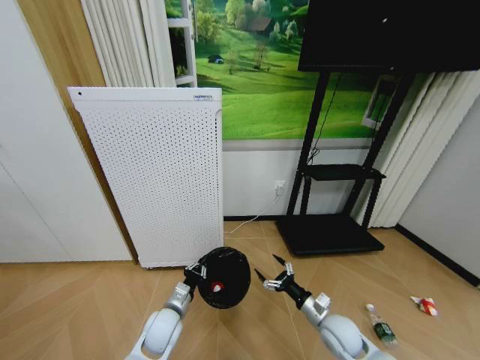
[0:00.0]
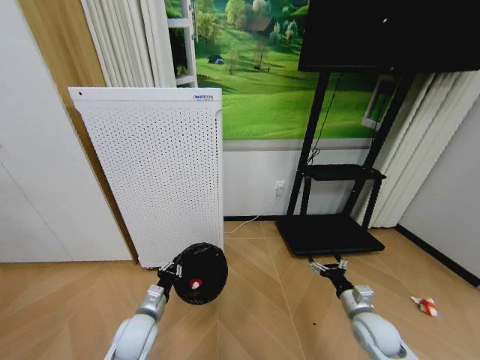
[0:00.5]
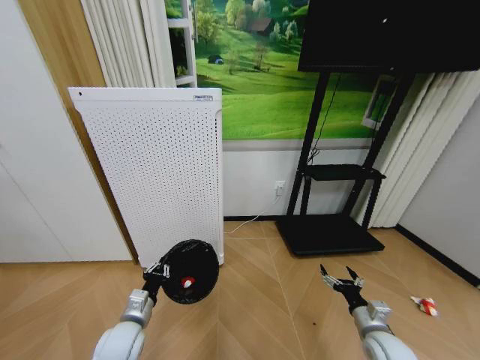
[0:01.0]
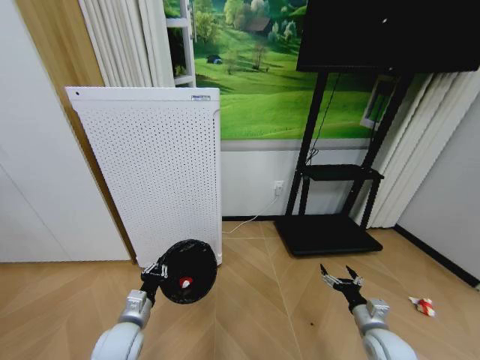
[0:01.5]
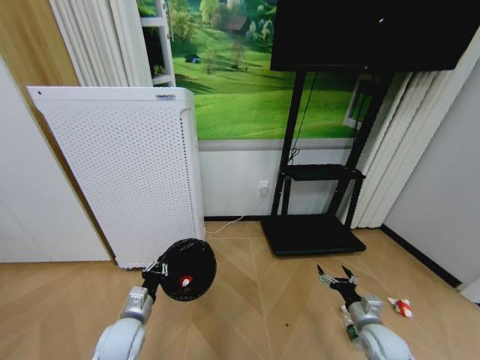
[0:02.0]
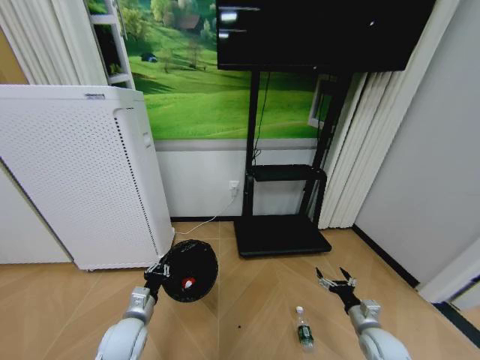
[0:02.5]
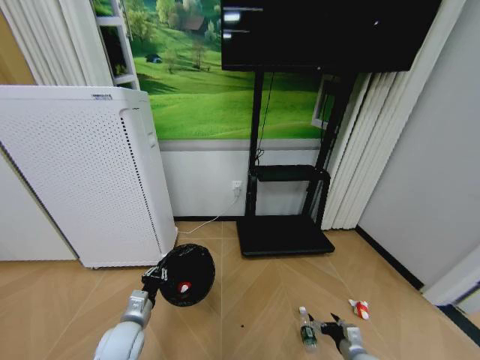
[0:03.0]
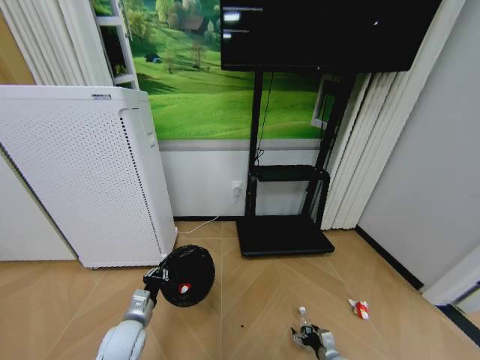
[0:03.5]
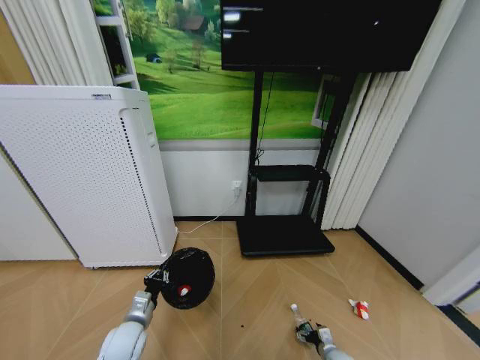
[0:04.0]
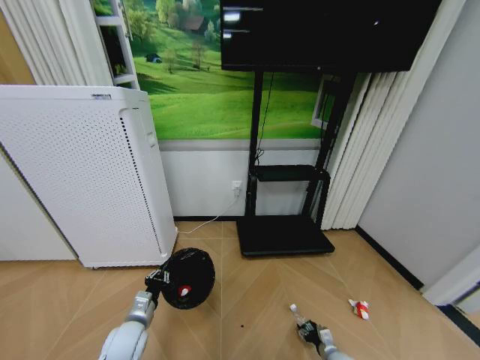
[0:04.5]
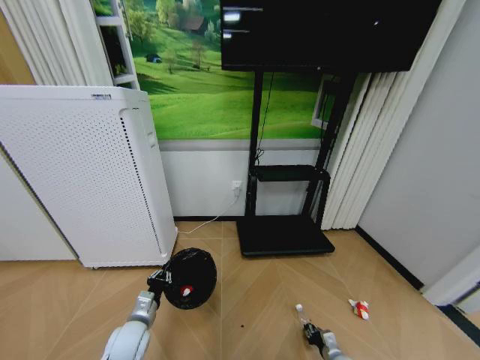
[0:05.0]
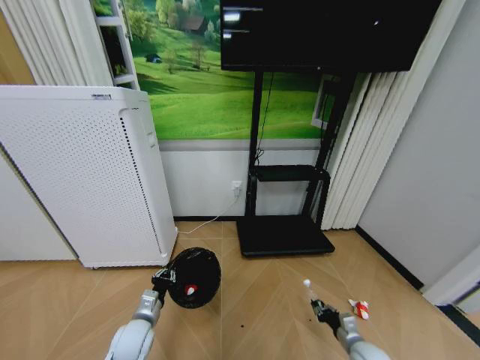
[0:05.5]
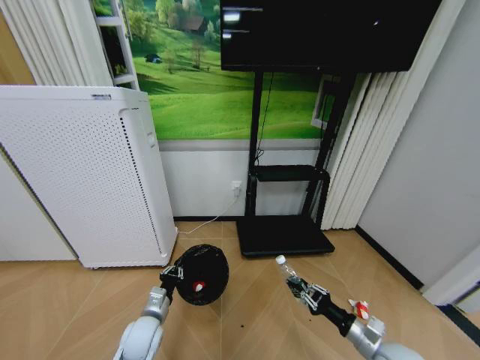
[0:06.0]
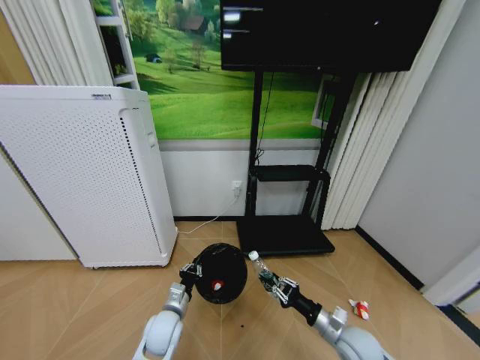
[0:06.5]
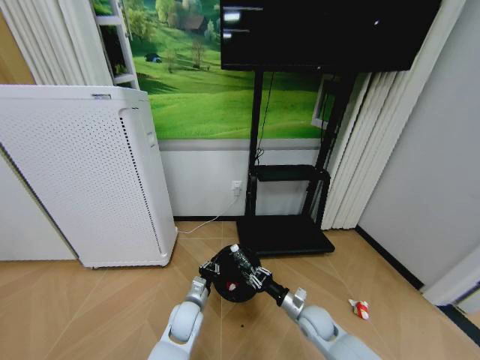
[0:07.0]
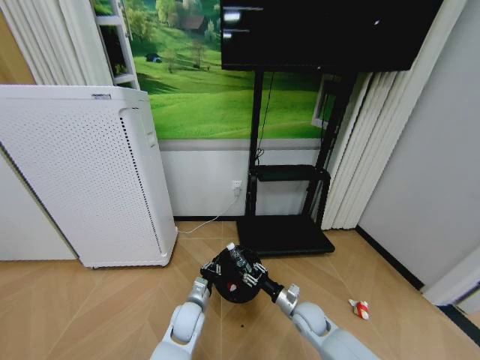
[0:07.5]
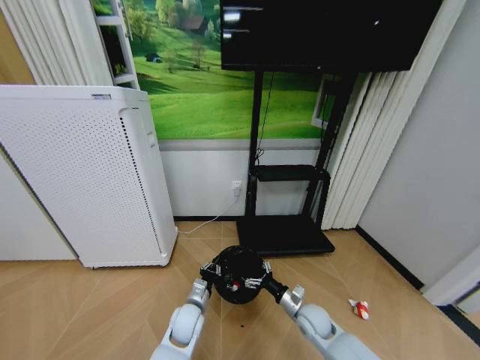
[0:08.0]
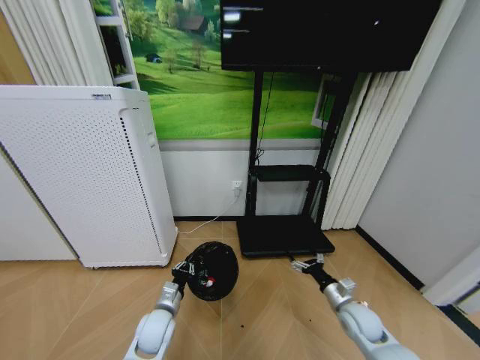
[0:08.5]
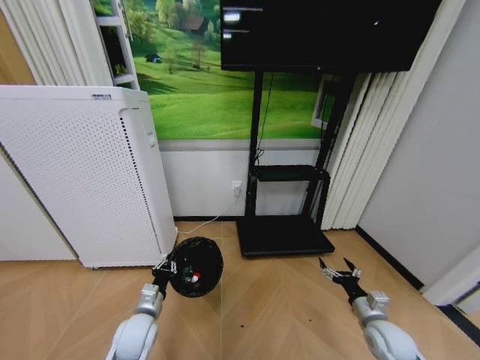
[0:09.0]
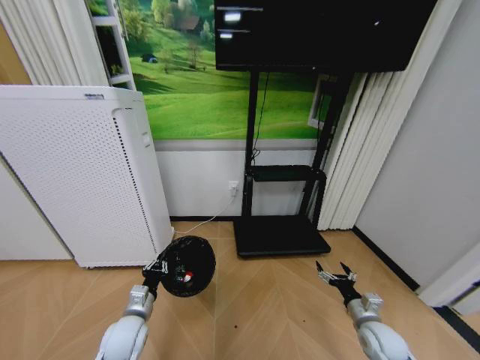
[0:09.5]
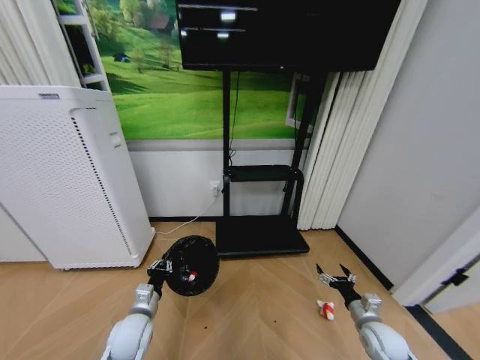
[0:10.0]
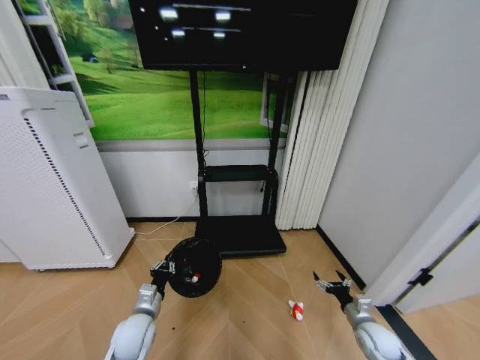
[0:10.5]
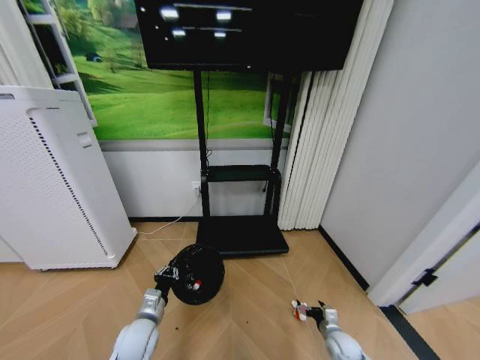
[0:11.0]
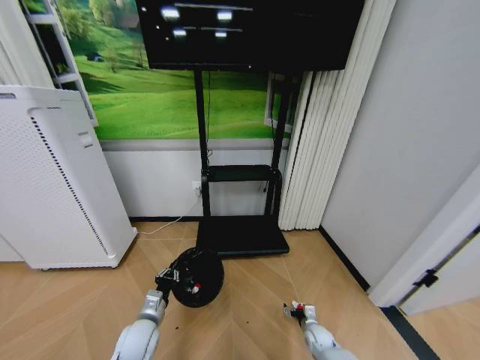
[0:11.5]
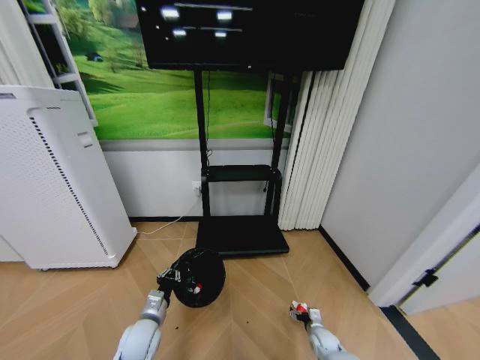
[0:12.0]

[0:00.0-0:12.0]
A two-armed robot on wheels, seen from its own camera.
Task of the whole recording: Pick up the trash bin and place the garbage on the floor into it.
0:00.0 to 0:02.0: The right gripper moves to the right, about 15 cm; the left gripper travels to the left by some 10 cm.
0:02.0 to 0:04.0: The right gripper moves downward, roughly 20 cm.
0:04.0 to 0:06.0: The right gripper goes some 25 cm upward, and closes its fingers.
0:06.0 to 0:08.0: The right gripper travels to the left, forward and downward by approximately 20 cm, and opens. The left gripper shifts some 10 cm to the right.
0:08.0 to 0:10.0: The left gripper goes approximately 15 cm to the left and upward; the right gripper heads to the right, covering roughly 15 cm.
0:10.0 to 0:12.0: The right gripper goes some 20 cm downward and to the left.

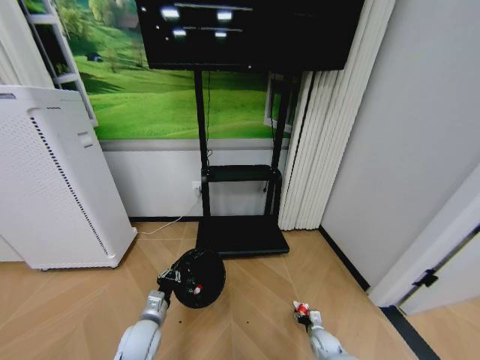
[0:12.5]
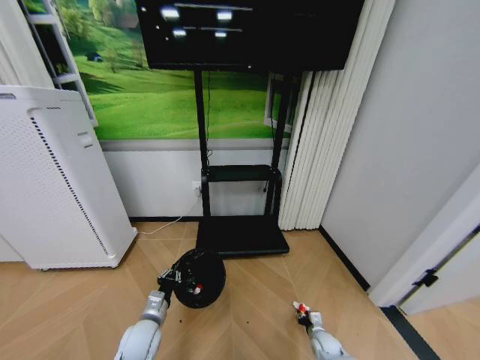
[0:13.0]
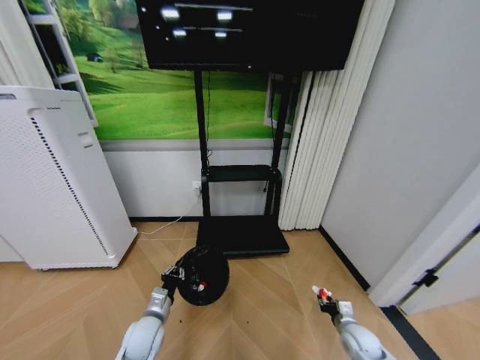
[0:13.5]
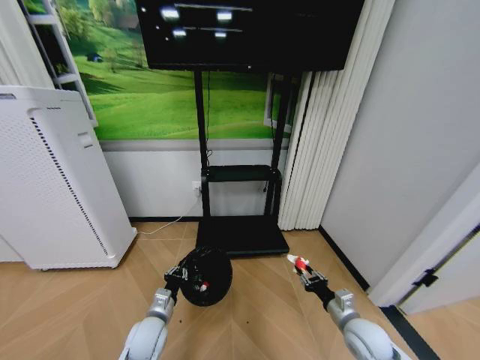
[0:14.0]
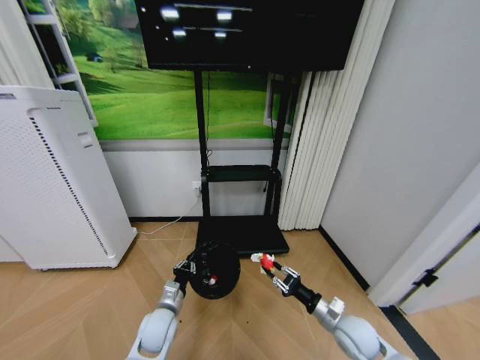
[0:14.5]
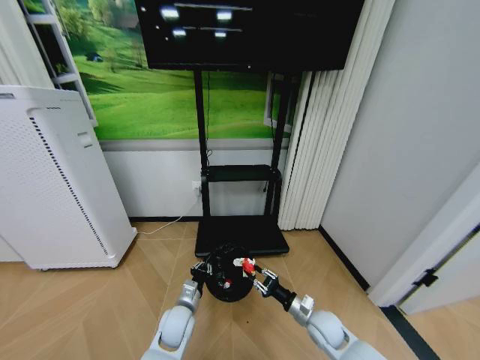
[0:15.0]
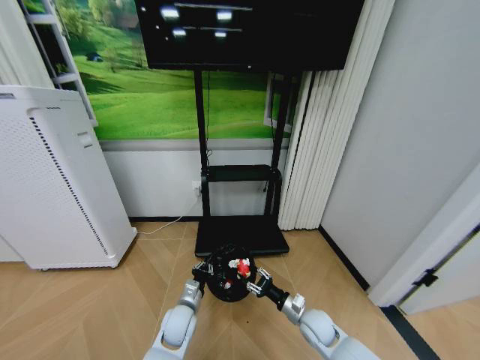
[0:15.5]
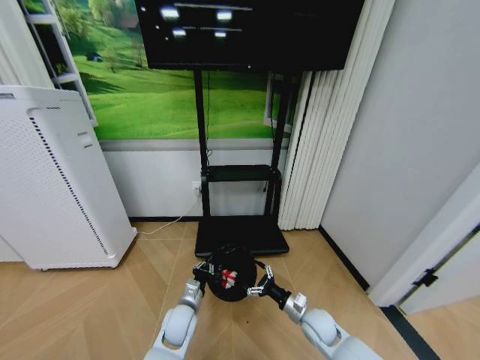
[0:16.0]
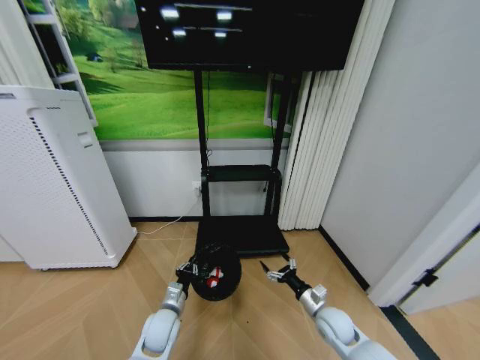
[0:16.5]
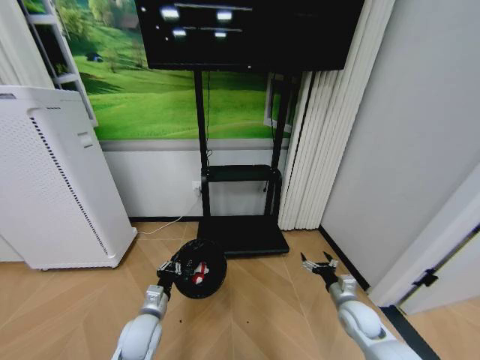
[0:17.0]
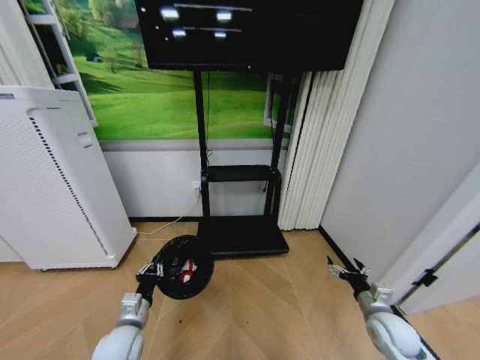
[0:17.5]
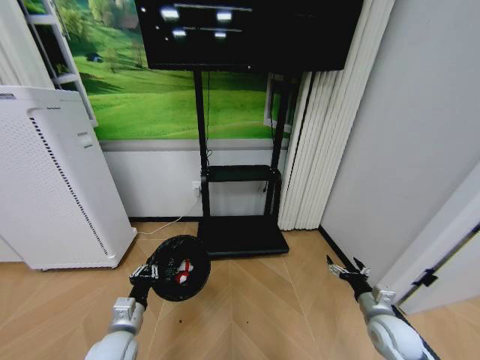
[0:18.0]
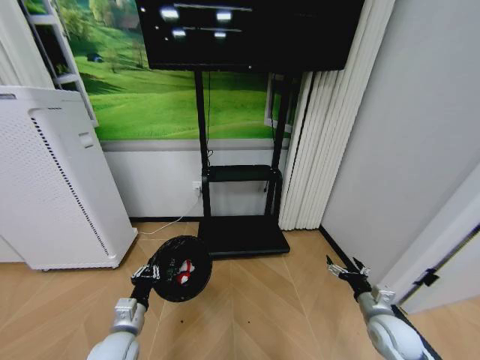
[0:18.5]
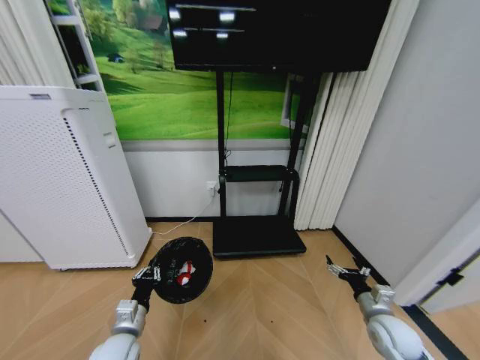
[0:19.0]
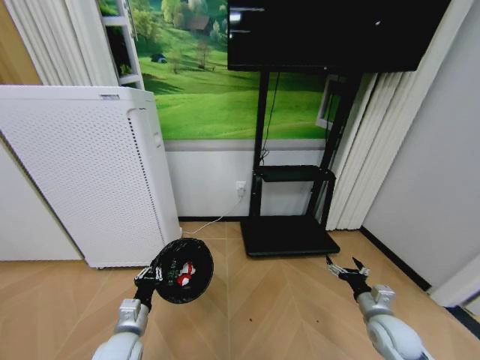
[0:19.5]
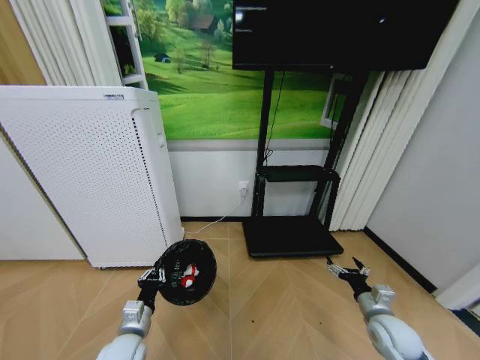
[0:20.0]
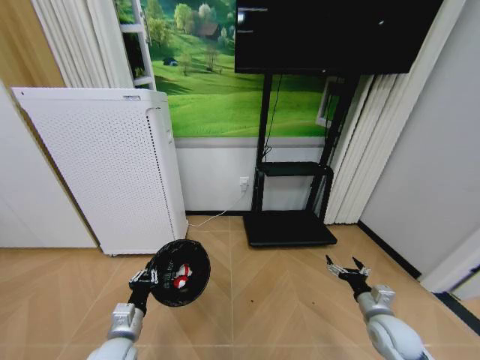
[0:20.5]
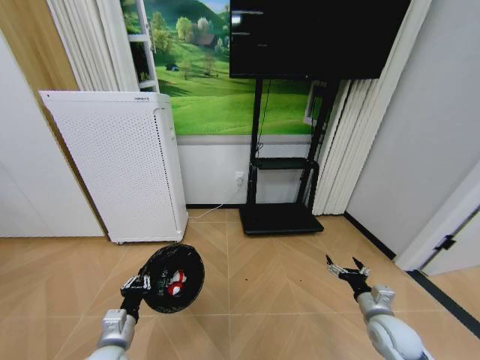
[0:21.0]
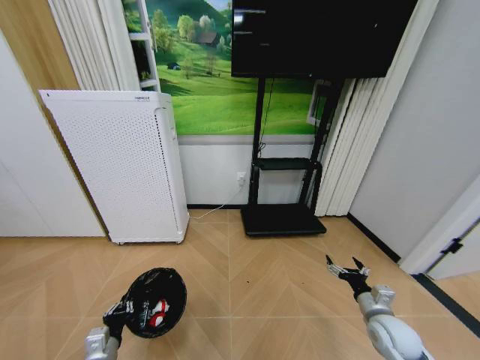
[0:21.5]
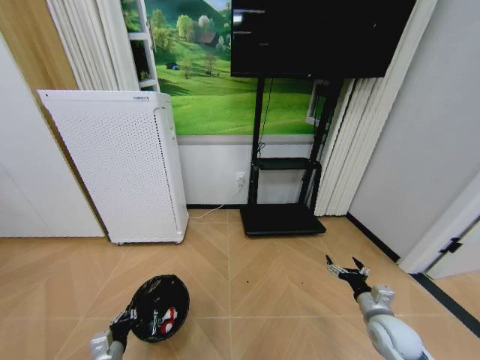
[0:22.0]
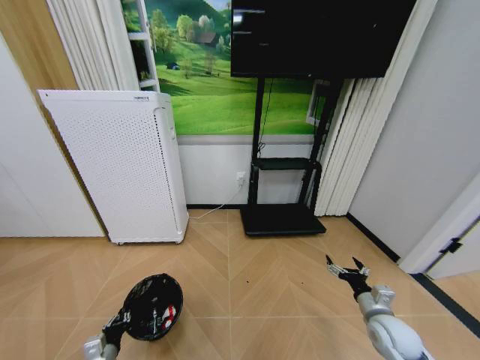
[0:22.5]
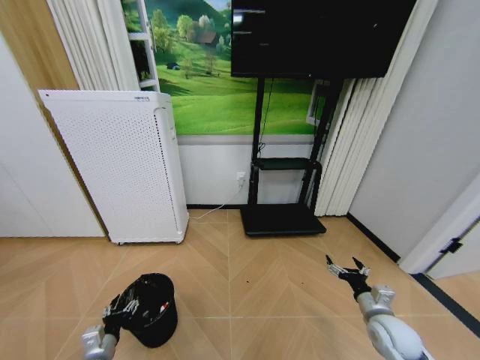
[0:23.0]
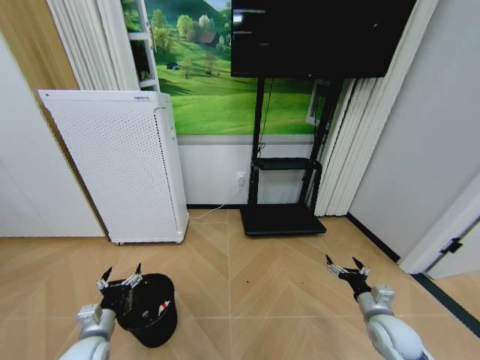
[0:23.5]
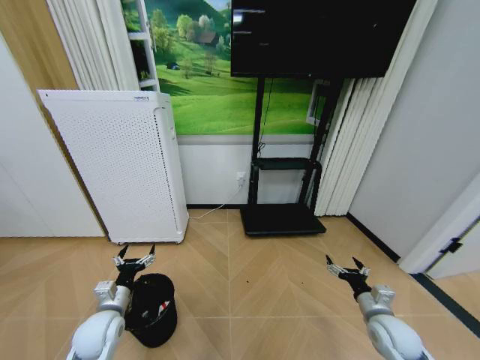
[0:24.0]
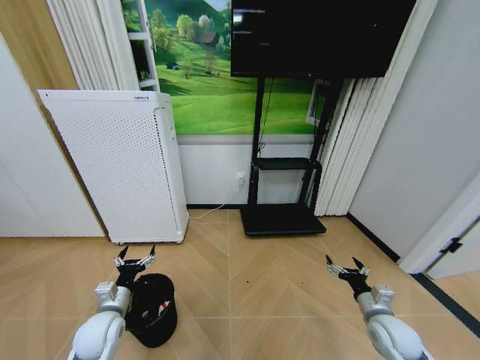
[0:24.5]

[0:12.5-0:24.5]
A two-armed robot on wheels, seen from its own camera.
Task of the whole recording: Pick up the trash bin and place the garbage on the floor into it.
0:12.5 to 0:14.5: The right gripper is displaced upward by about 25 cm, and closes its fingers.
0:14.5 to 0:16.5: The right gripper opens.
0:16.5 to 0:18.5: The left gripper shifts some 10 cm backward, to the left and upward; the right gripper moves to the right and upward, some 15 cm.
0:20.5 to 0:22.5: The left gripper goes about 15 cm downward and to the left.
0:22.5 to 0:24.5: The left gripper moves upward and forward, some 15 cm, and opens up.

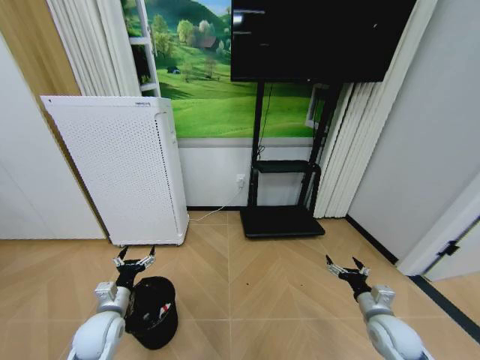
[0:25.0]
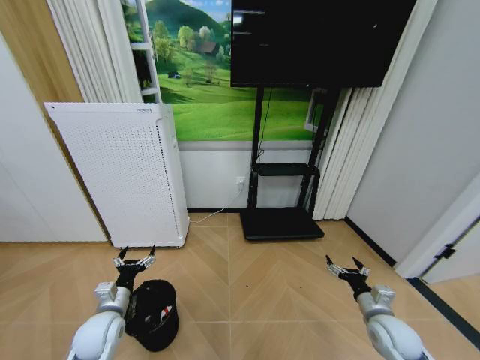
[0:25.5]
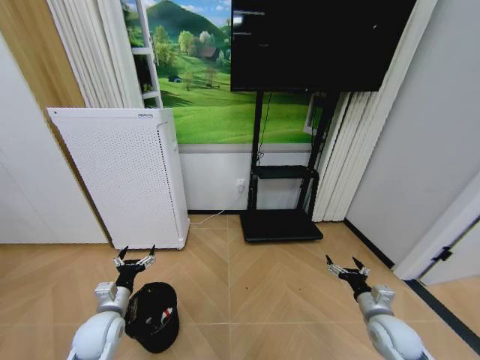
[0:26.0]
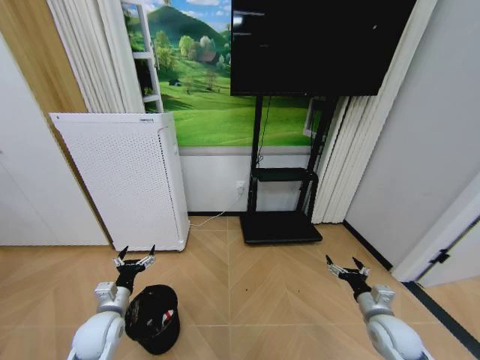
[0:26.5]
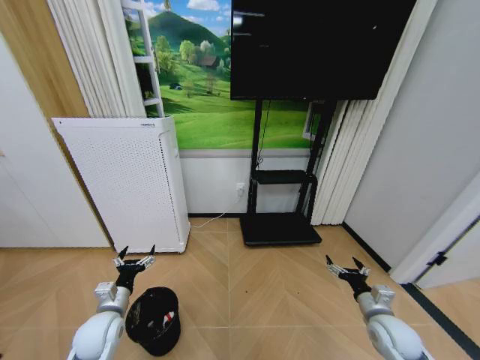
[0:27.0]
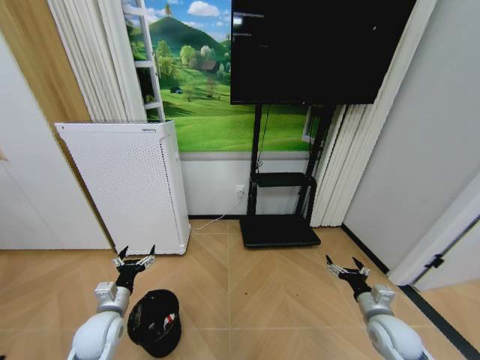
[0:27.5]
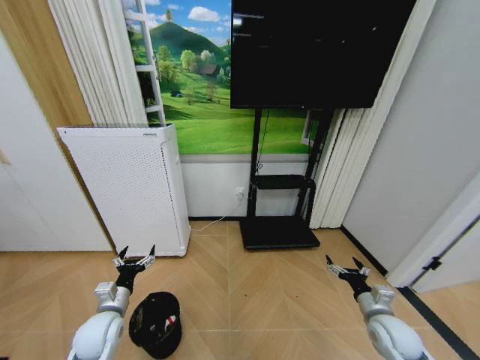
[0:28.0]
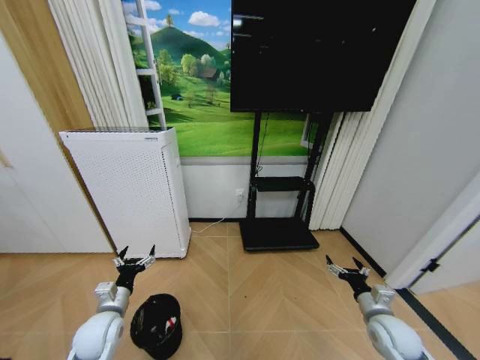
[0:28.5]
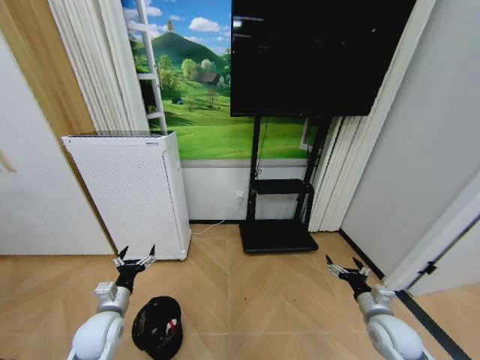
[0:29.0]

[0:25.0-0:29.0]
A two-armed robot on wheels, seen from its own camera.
Task of the whole recording: Pick up the trash bin and place the garbage on the floor into it.
0:25.0 to 0:29.0: The two grippers keep their place.
